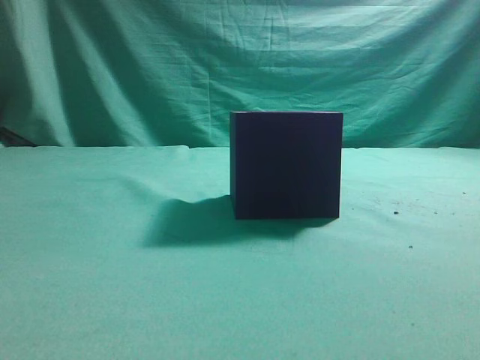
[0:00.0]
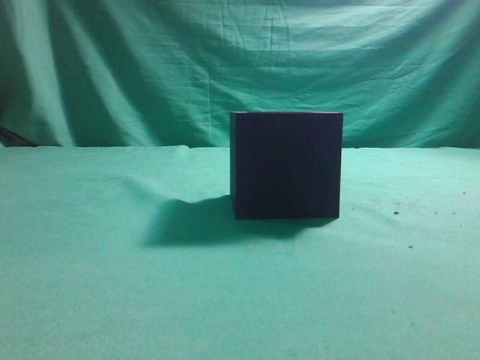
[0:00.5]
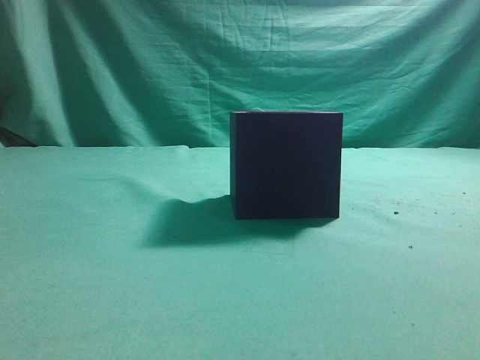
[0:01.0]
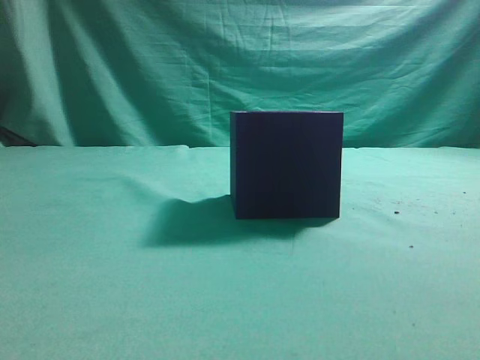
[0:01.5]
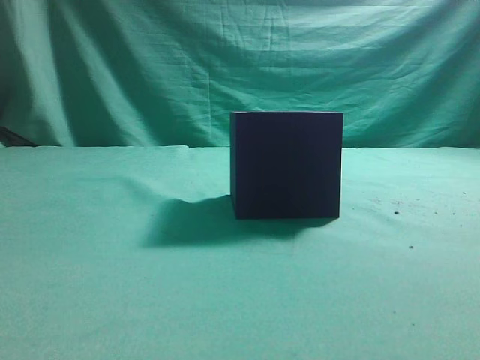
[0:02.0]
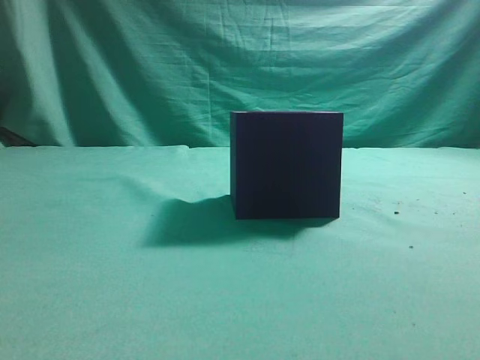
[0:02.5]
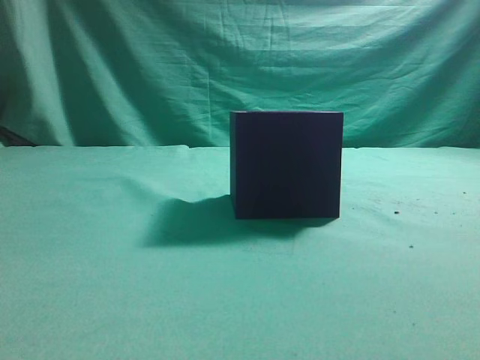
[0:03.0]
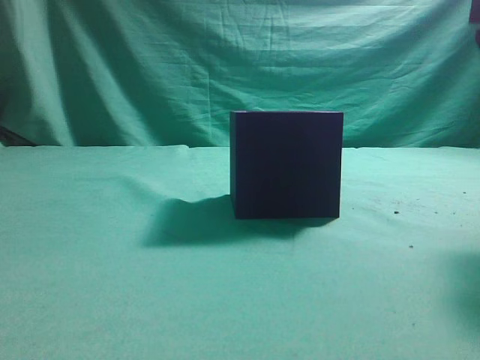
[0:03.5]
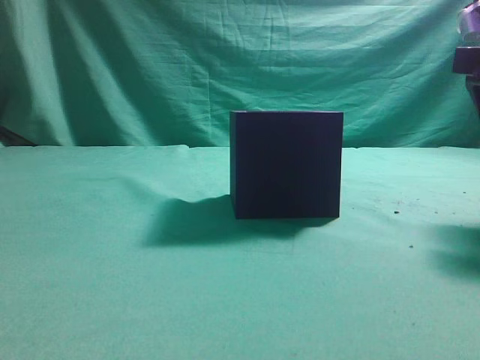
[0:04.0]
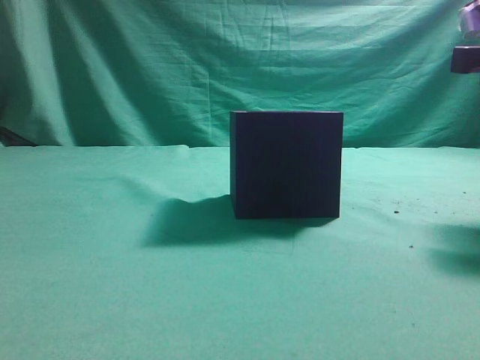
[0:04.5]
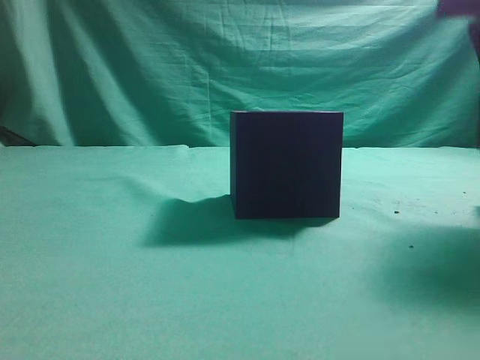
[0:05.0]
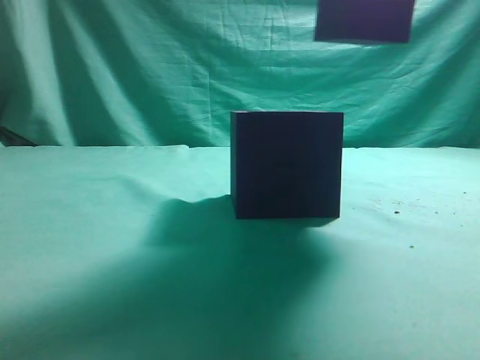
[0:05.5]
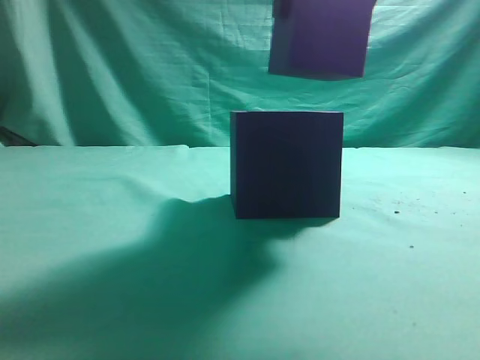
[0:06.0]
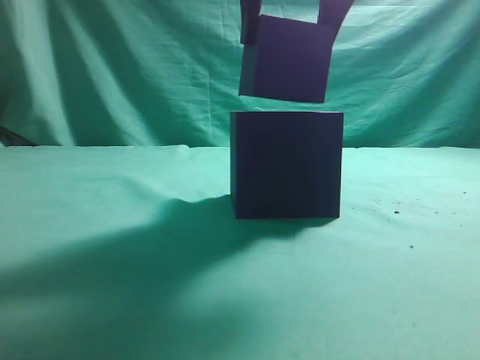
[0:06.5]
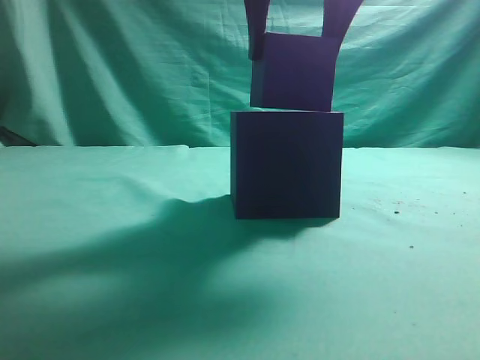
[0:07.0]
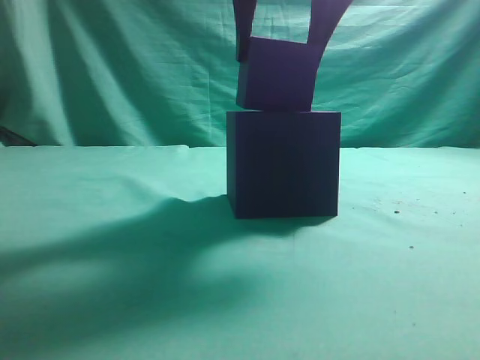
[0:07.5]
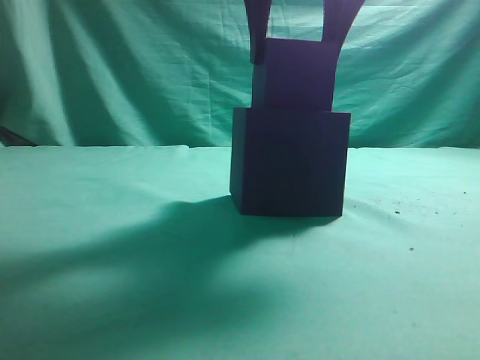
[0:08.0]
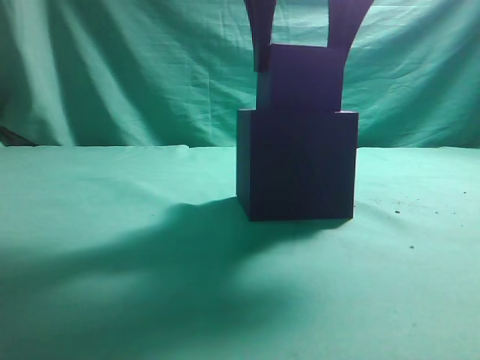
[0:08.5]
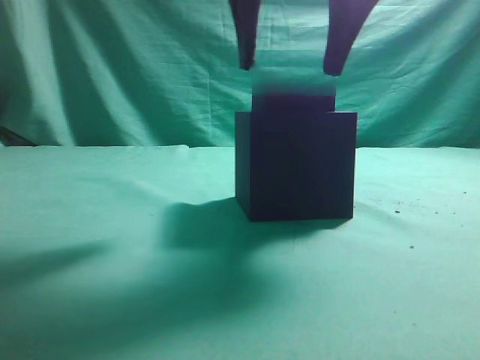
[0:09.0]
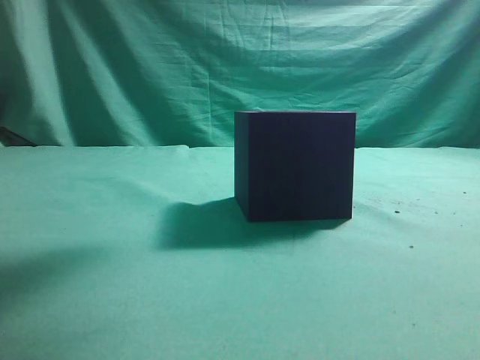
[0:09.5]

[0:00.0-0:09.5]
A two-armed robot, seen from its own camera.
Task of the whole recording: pick up the cube block and place it into the cube groove.
Step, 0:00.0 to 0:05.0: Grasp the cube.
Step, 0:05.5 to 0:09.0: Place cube into the cube-shaped recess.
0:02.0 to 0:04.0: The right gripper goes approximately 20 cm forward, and opens.
0:04.0 to 0:05.5: The right gripper goes approximately 20 cm upward and to the left.
0:05.5 to 0:07.5: The right gripper shifts some 10 cm to the left and downward.
0:07.5 to 0:09.5: The right gripper goes approximately 5 cm upward.
